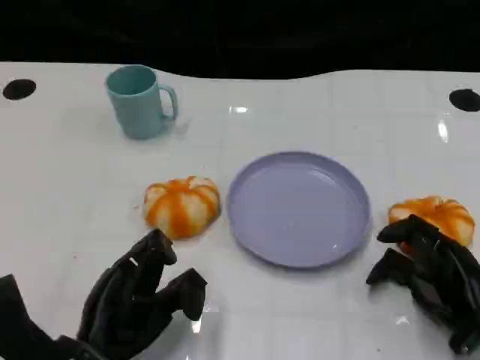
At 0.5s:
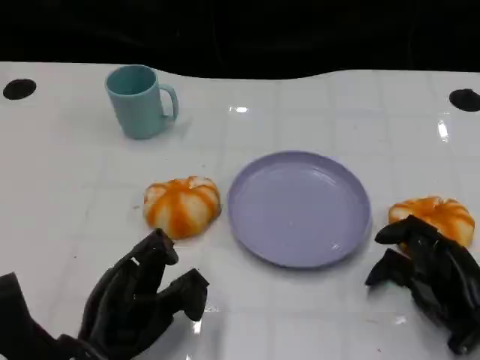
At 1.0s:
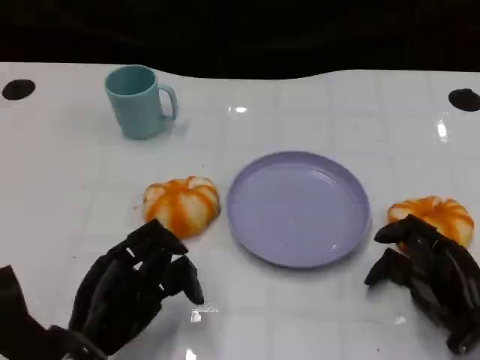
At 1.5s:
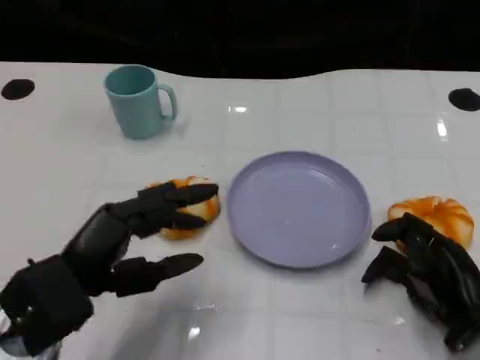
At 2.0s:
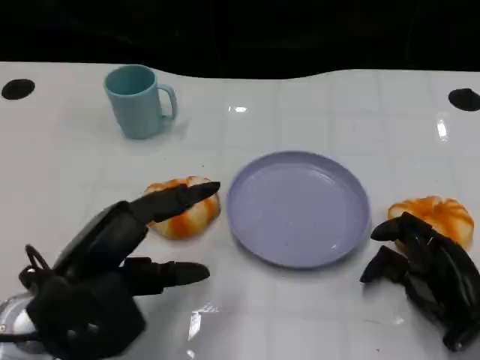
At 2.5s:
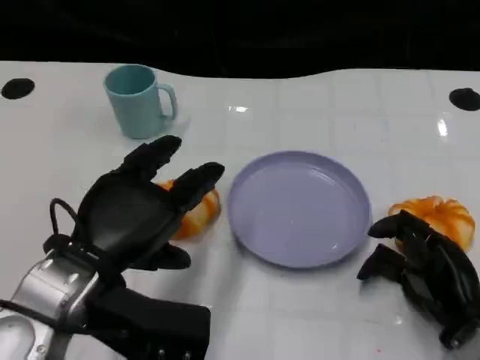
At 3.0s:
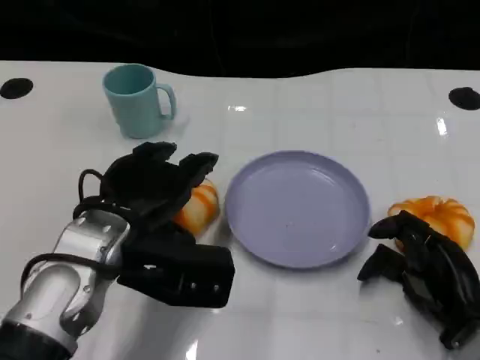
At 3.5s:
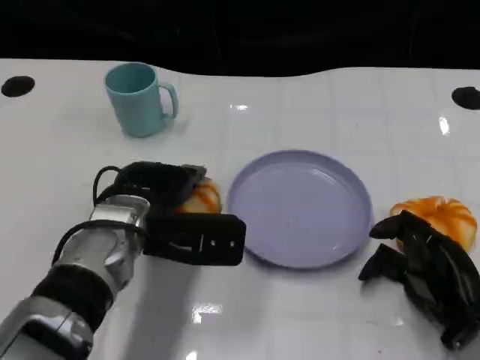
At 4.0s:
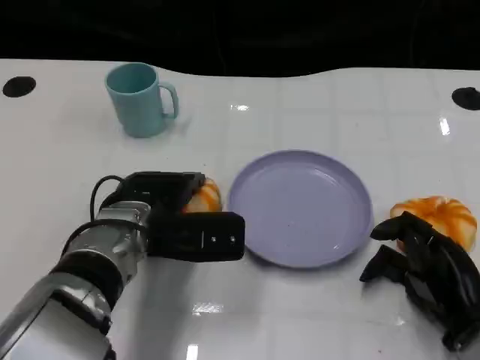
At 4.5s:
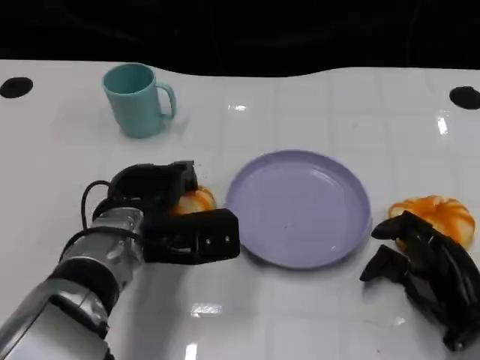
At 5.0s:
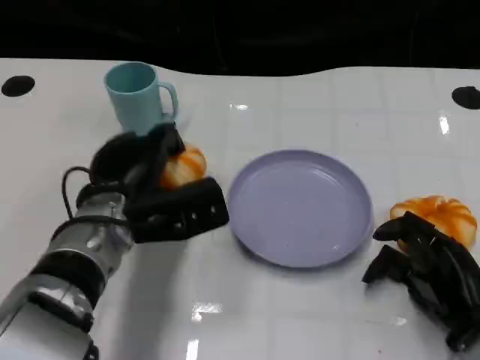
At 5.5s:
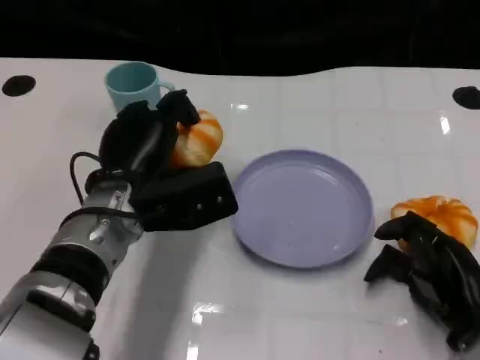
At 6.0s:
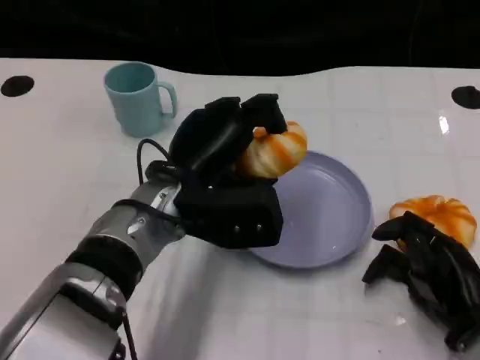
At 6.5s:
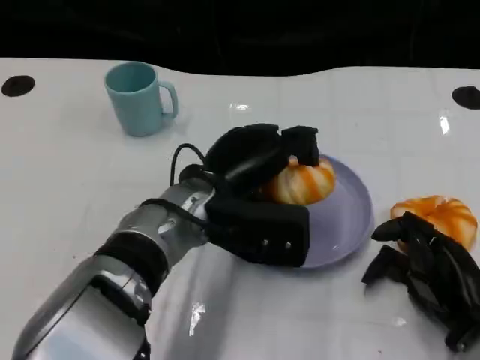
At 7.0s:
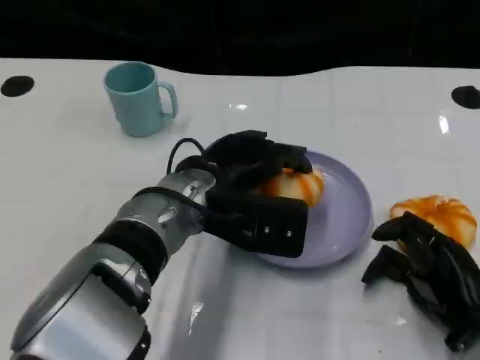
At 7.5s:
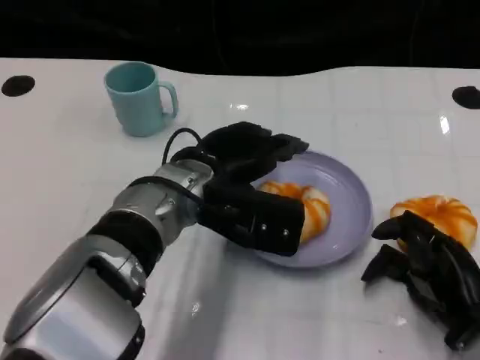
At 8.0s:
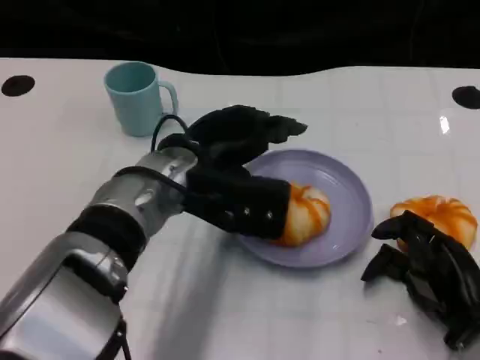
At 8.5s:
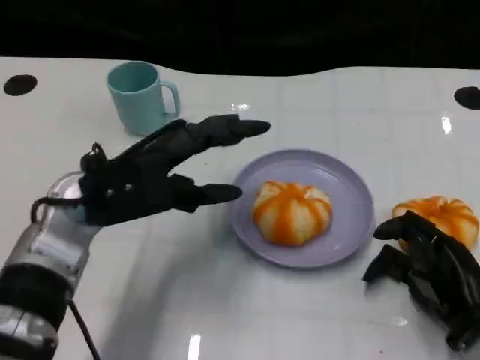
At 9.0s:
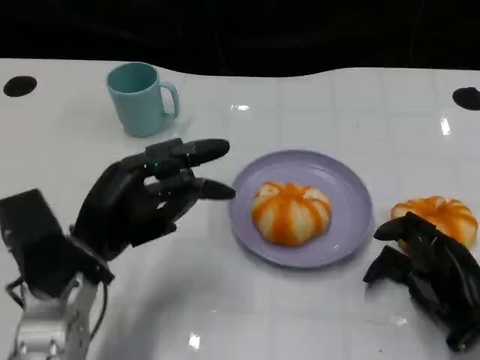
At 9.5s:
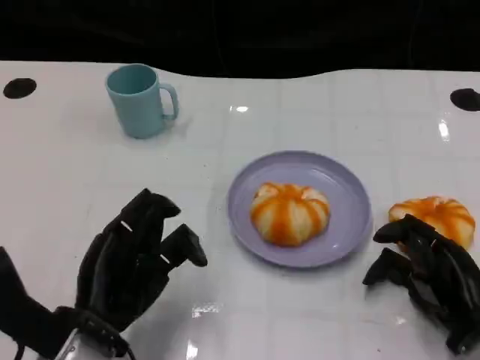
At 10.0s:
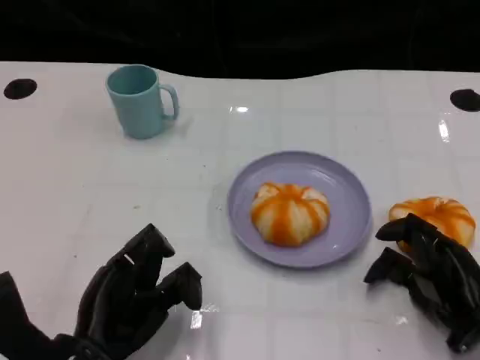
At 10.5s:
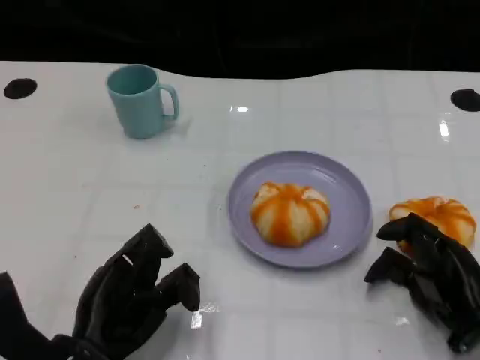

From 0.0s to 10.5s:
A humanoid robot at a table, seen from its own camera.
Task of the whole recording: Grasp the bread from the table and place it into the plate.
From 0.0s to 2.0s: The left hand heads upward, covering about 10 cm.
From 2.0s to 4.0s: The left hand travels forward and to the right by roughly 15 cm.
From 4.0s to 6.5s: The left hand goes approximately 5 cm to the right.
From 6.5s to 8.5s: The left hand is displaced to the left by about 10 cm.
From 8.5s to 10.5s: The left hand goes some 15 cm backward and downward.

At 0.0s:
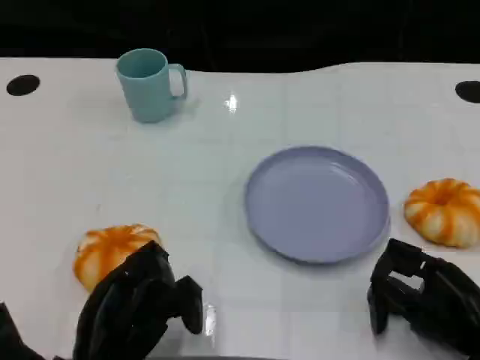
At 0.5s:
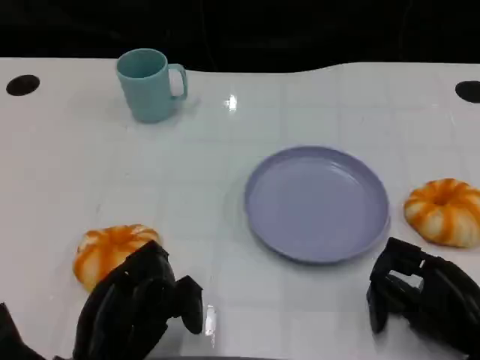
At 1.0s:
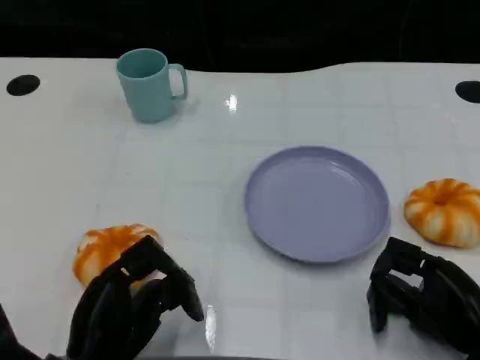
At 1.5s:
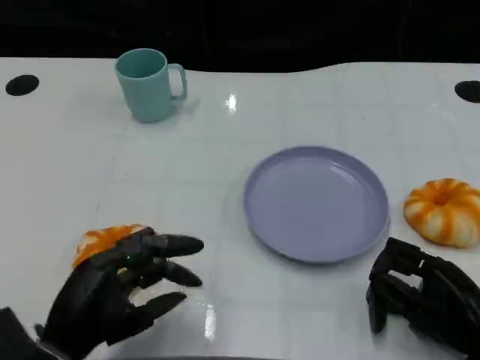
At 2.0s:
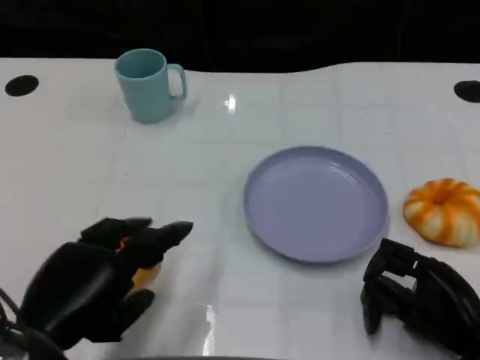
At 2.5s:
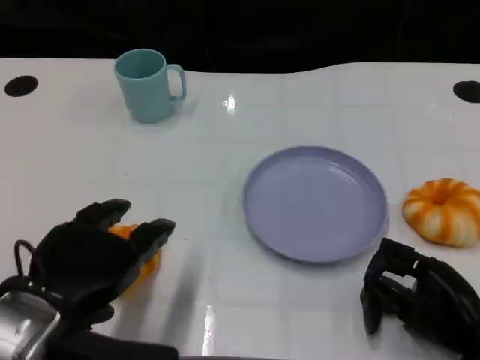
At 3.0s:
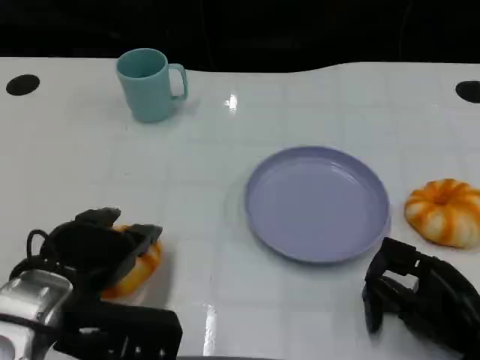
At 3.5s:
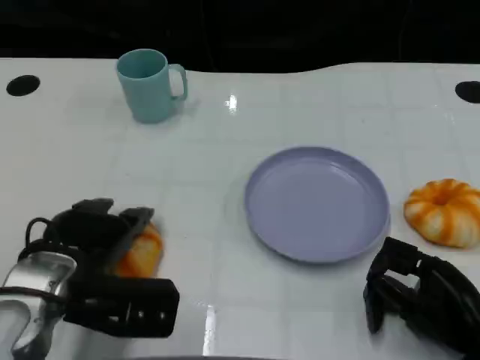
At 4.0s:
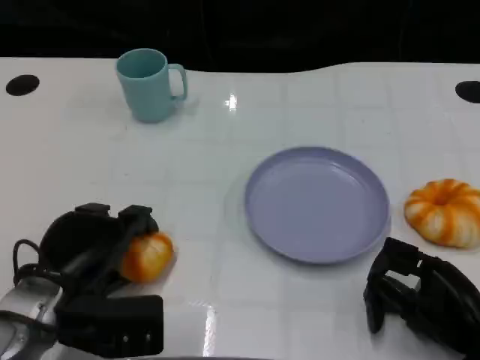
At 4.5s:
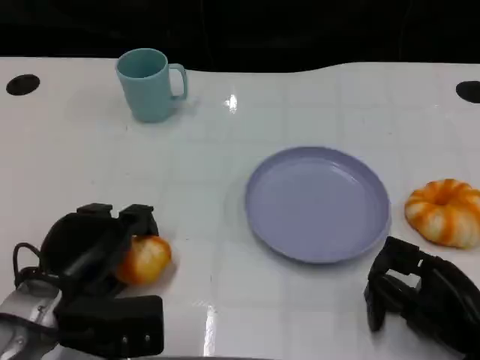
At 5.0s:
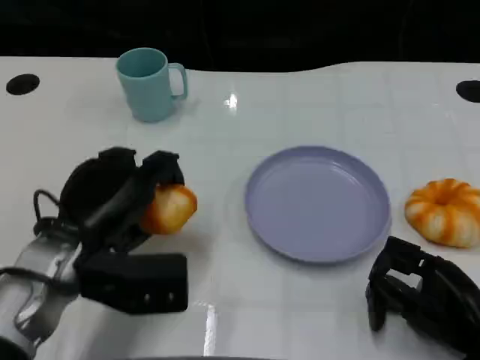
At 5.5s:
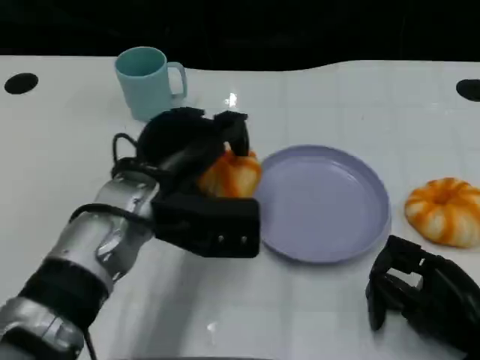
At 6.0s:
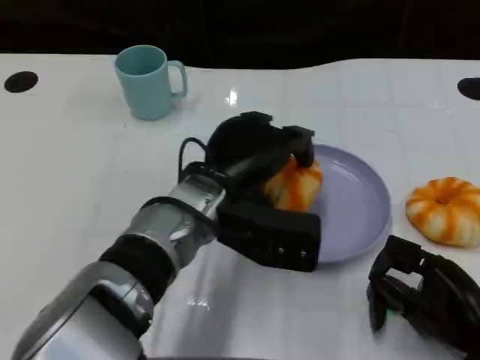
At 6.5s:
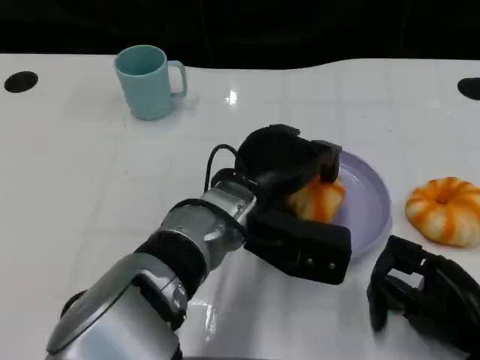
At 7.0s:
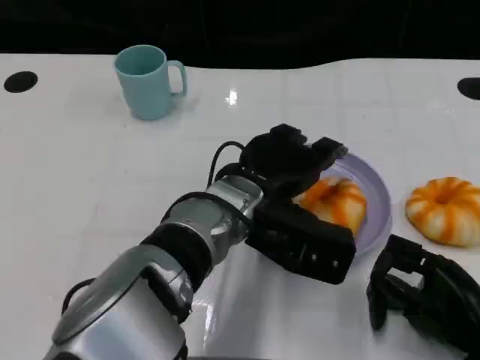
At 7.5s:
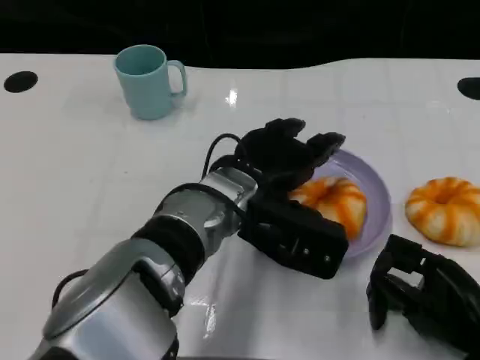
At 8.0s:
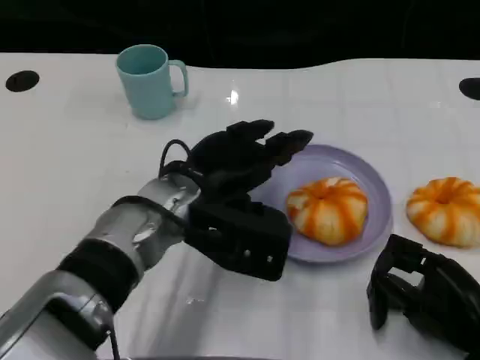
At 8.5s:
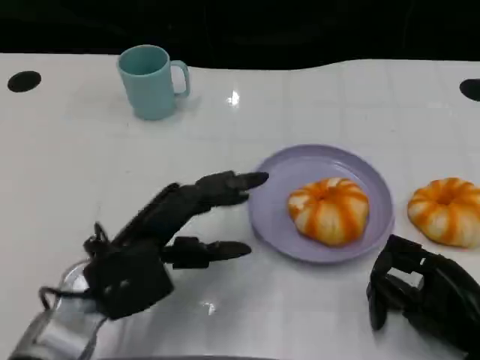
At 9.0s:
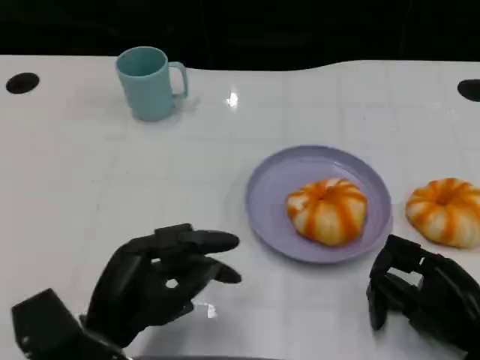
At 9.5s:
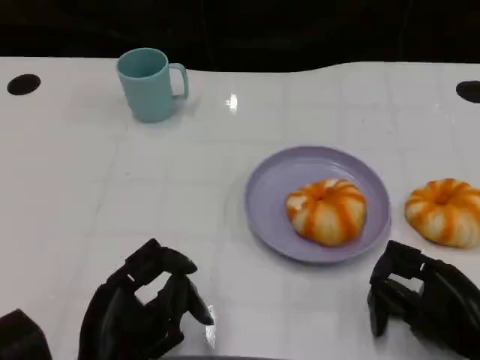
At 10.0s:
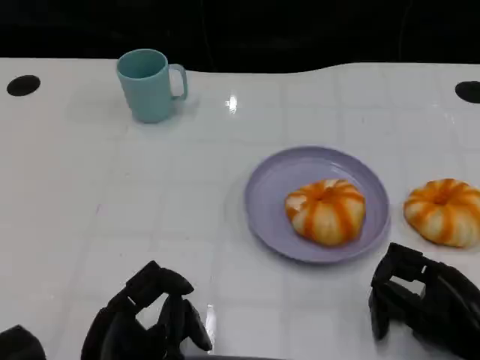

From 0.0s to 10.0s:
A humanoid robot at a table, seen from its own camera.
Task of the whole recording: Grasp the bread from the table and place it into the plate.
From 0.0s to 2.0s: The left hand shifts some 10 cm upward.
From 2.0s to 4.0s: The left hand moves forward and downward, roughly 10 cm.
From 4.0s to 6.0s: The left hand moves to the right, roughly 15 cm.
From 8.0s to 10.0s: The left hand heads backward, to the left and downward, covering some 20 cm.

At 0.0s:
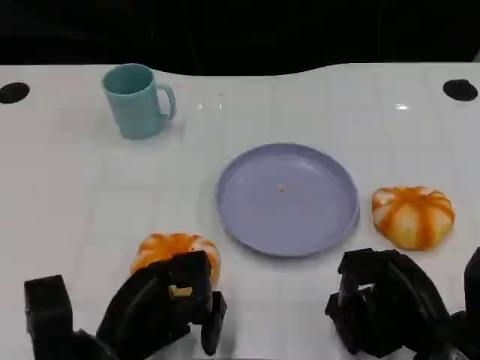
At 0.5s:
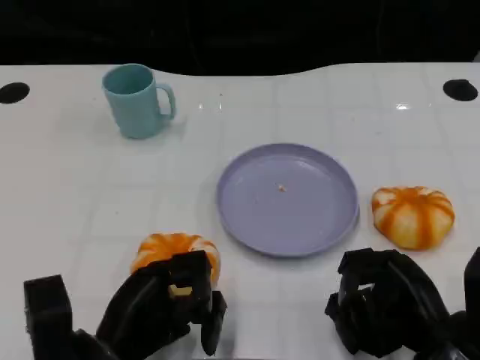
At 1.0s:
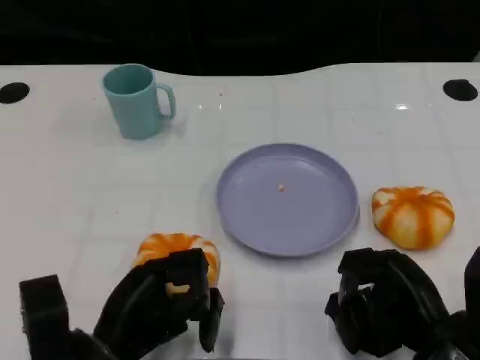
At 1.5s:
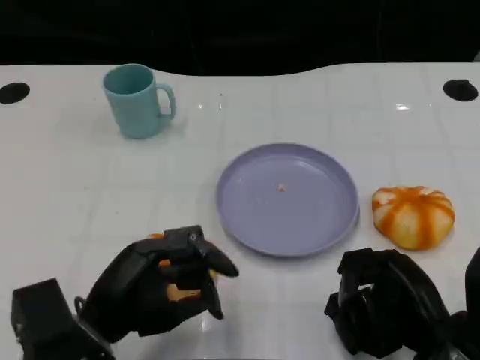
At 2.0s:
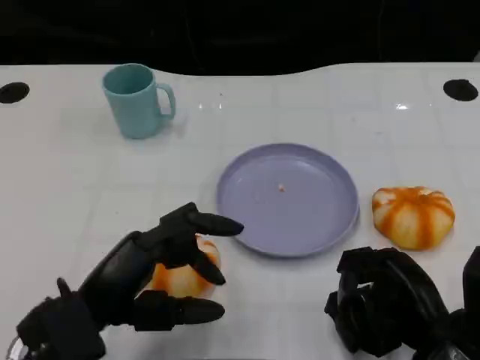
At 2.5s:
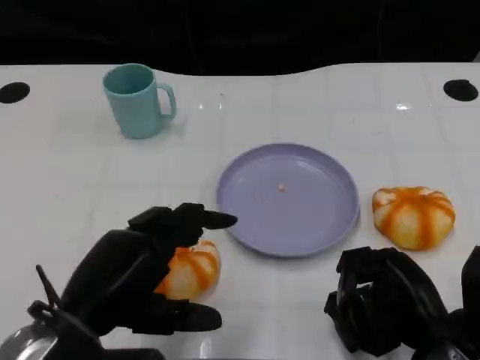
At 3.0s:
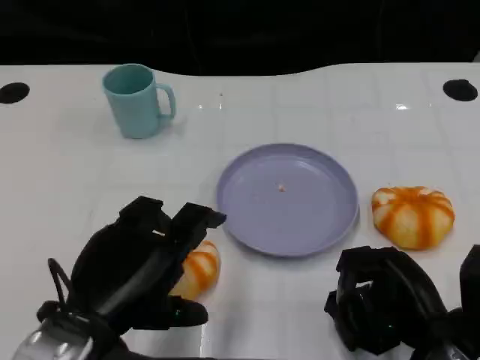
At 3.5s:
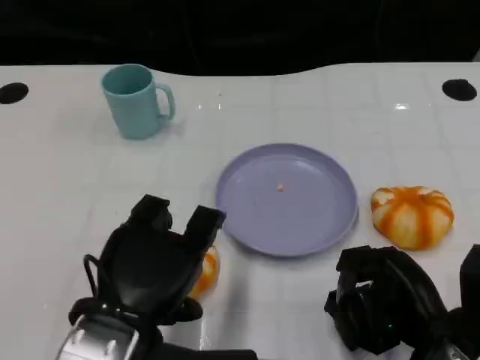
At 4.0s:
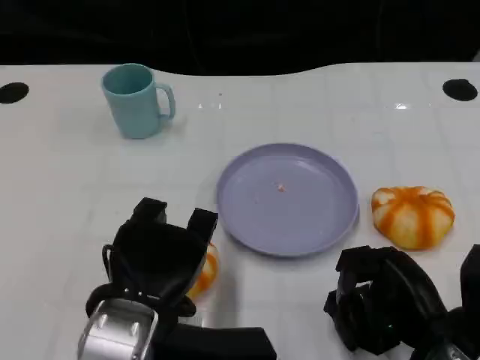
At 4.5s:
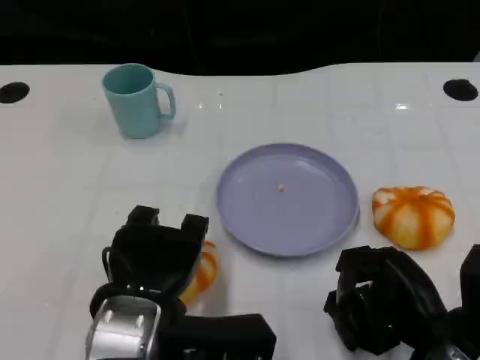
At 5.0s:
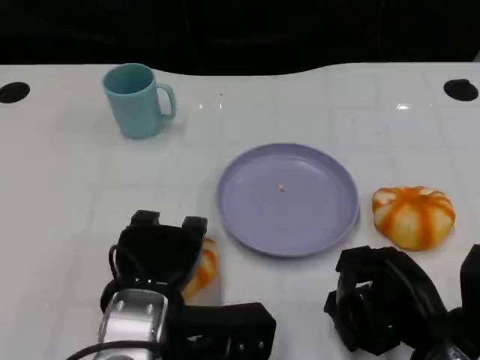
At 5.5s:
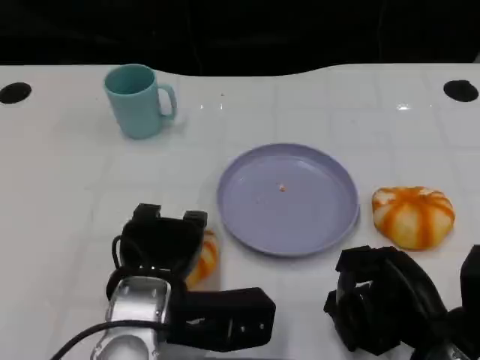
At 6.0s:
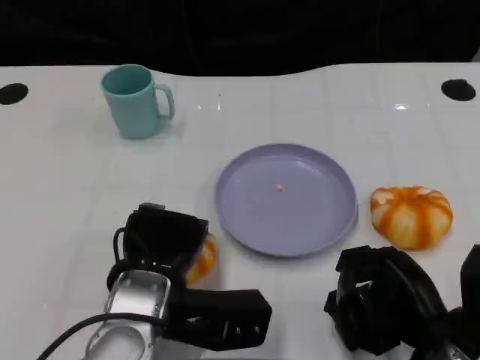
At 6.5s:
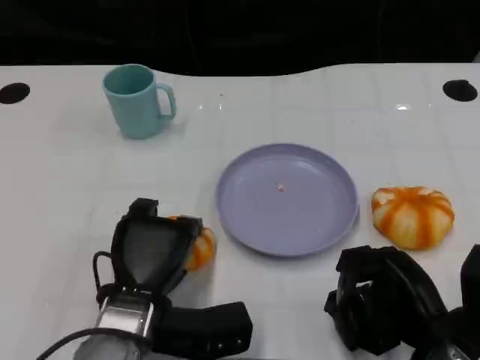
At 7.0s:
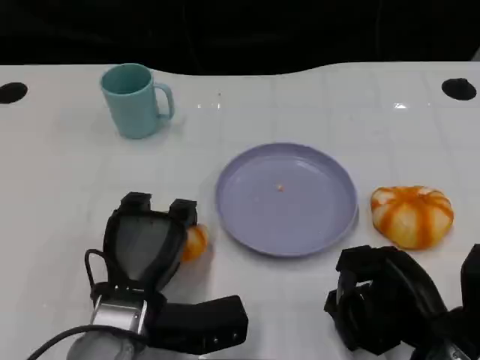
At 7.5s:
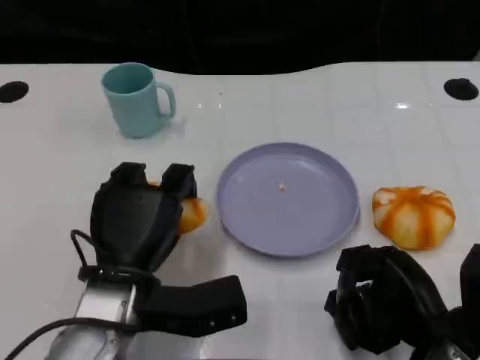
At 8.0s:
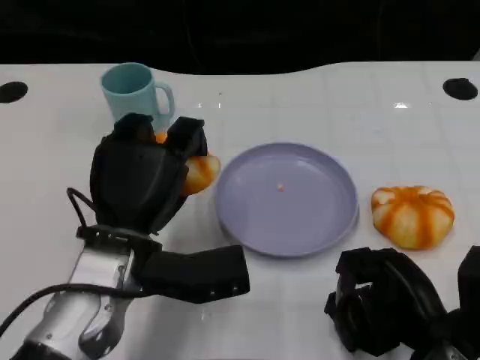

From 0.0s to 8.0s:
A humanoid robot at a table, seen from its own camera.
Task of the whole recording: Grasp the bread from the table and place it into the plate.
From 0.0s to 2.0s: The left hand is displaced upward by roughly 5 cm.
From 2.0s to 4.0s: The left hand moves to the right, roughly 5 cm.
From 4.0s to 6.0s: The left hand shifts by some 5 cm.
